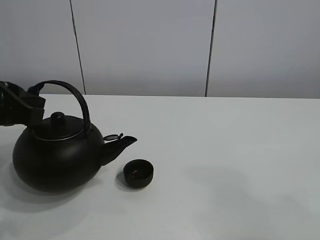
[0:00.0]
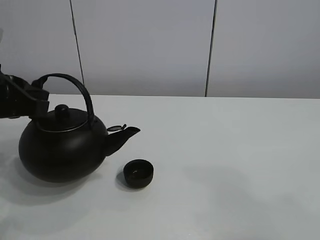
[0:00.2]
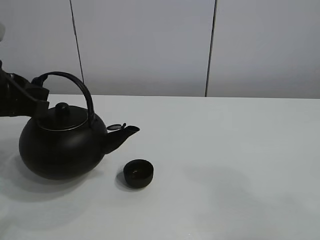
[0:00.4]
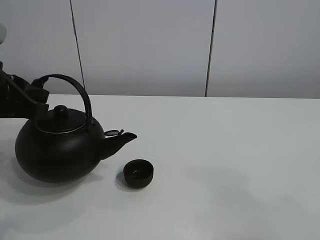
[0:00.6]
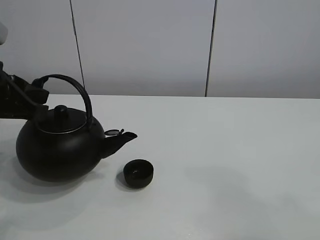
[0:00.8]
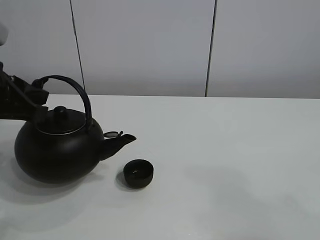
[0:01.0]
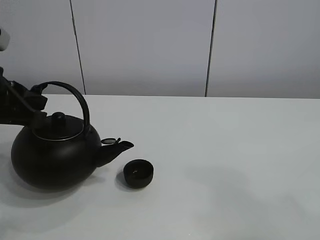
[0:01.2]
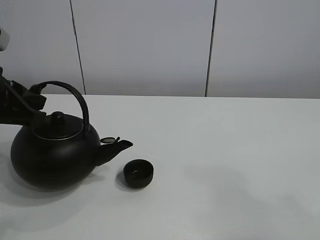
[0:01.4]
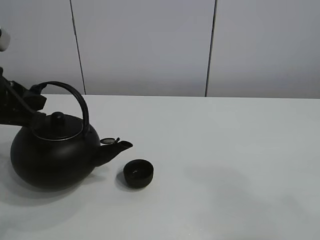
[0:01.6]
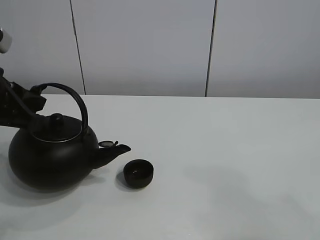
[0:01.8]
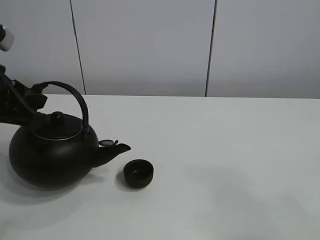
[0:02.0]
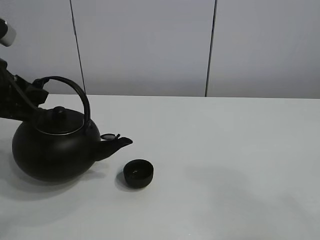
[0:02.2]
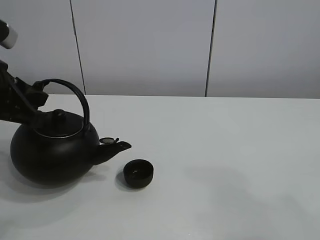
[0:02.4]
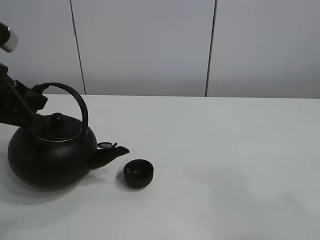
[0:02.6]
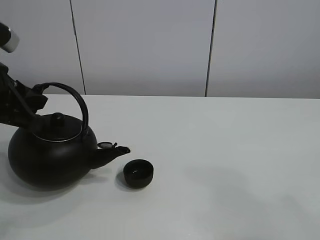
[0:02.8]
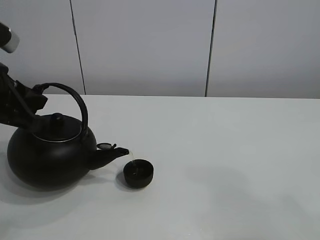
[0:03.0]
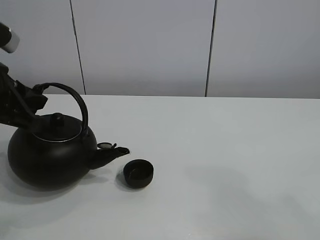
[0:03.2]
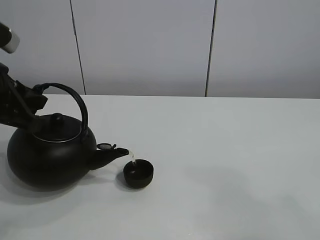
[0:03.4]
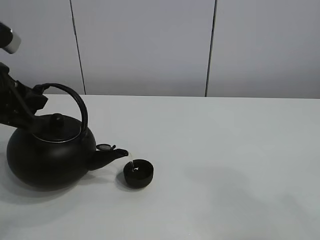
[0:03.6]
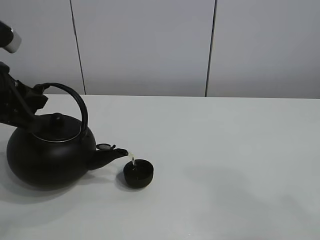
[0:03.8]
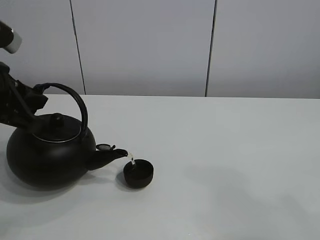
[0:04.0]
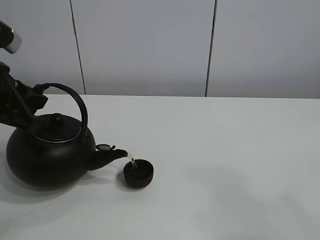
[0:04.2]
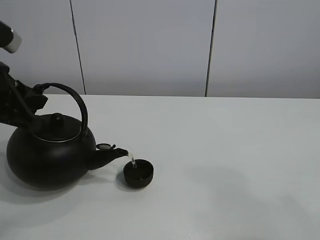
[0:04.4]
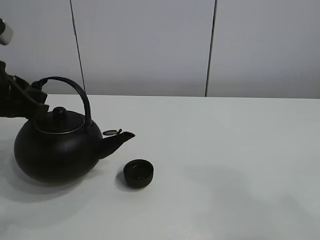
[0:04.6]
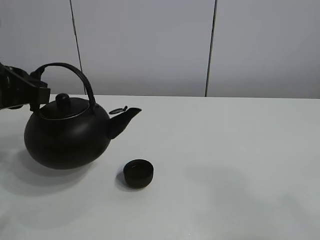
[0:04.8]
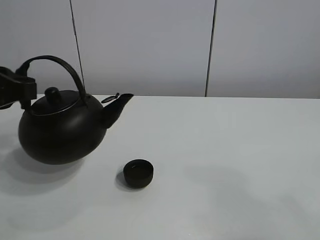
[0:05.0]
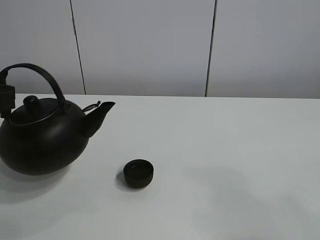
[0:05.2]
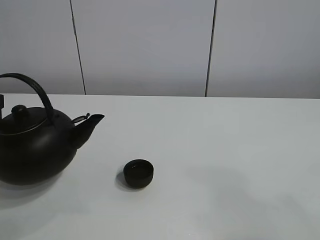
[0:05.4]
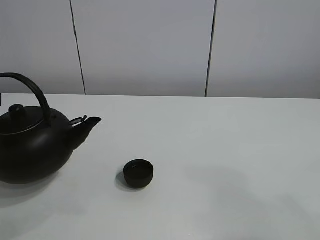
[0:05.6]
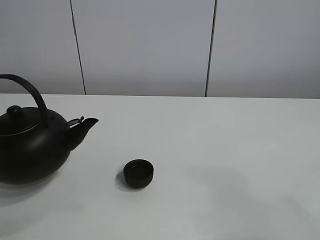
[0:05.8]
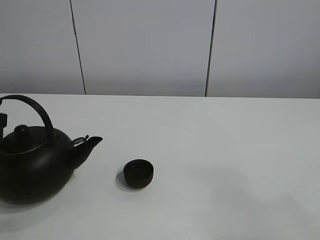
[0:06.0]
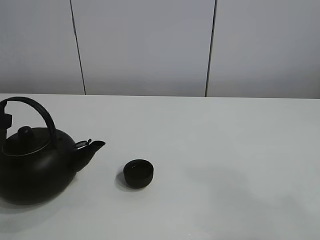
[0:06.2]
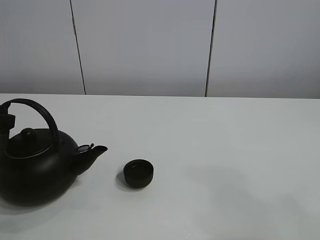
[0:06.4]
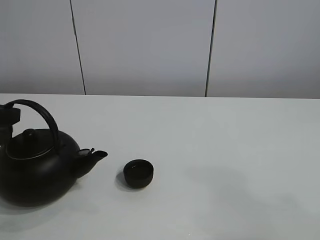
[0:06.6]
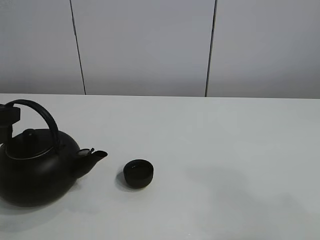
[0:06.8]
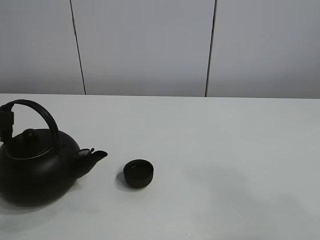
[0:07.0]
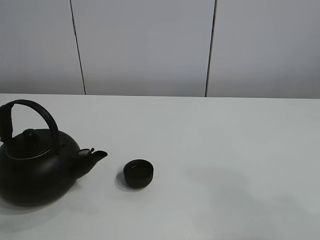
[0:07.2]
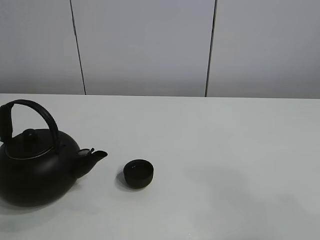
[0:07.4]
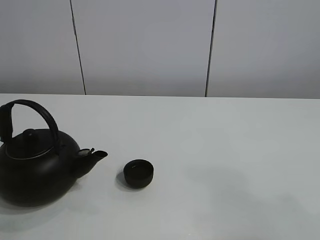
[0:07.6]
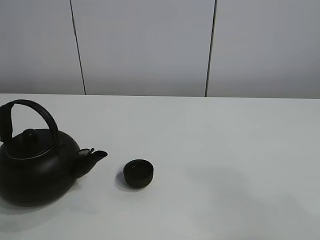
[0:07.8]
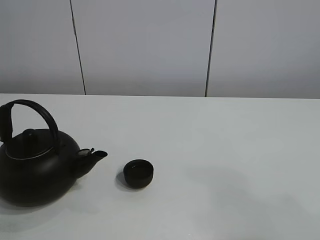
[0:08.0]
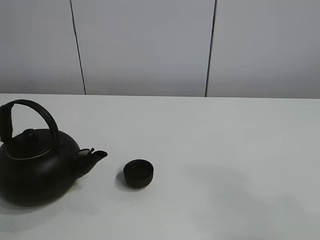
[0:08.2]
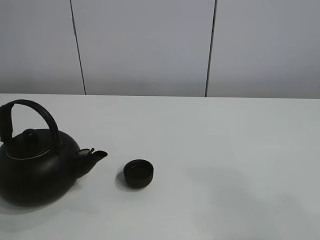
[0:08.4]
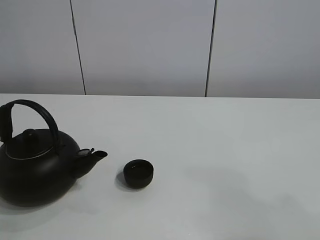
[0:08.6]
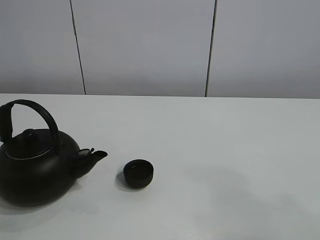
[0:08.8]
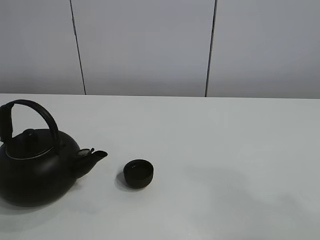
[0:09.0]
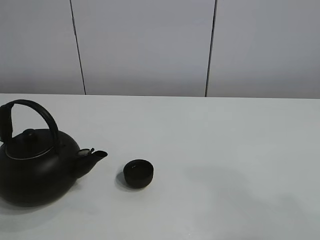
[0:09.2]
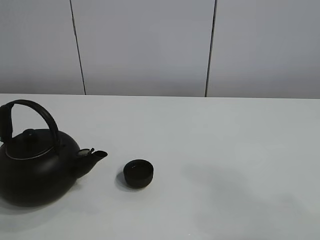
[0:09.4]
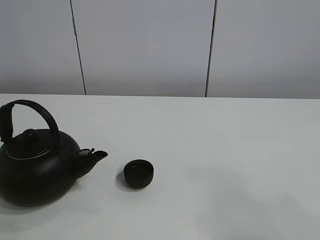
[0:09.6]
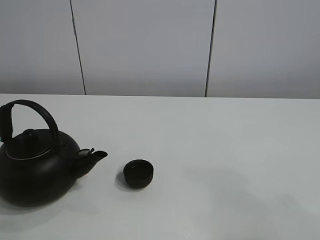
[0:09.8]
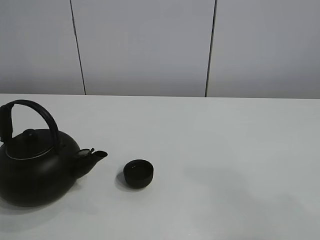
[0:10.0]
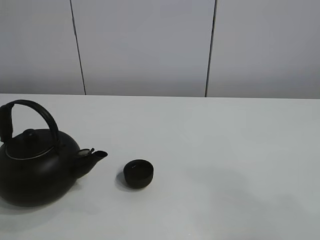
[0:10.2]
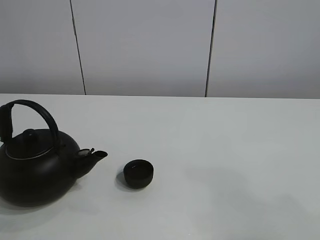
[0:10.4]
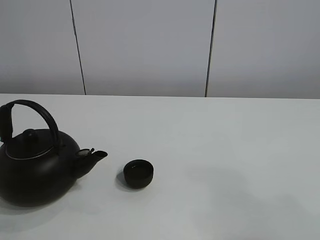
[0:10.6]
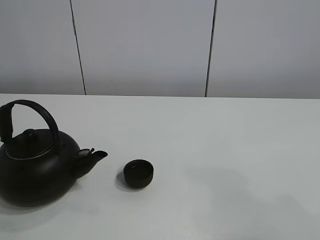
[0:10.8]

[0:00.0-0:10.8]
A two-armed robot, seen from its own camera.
Task of the whole recording: pour tea into the teacup.
Step, 0:00.0 to 0:04.4: Pour tea into the teacup with the left gripper.
0:00.0 to 0:04.6: The grippers make only small movements.
0:04.6 to 0:06.2: The left gripper heads to the left and downward, covering some 10 cm.
0:06.2 to 0:07.8: The left gripper opens.

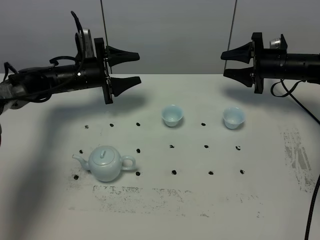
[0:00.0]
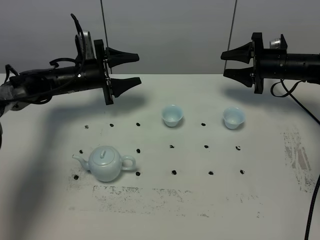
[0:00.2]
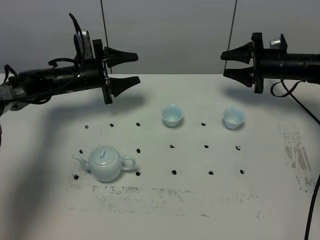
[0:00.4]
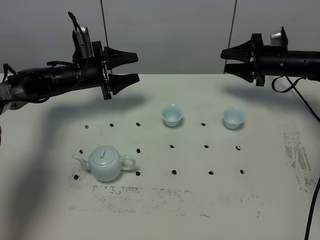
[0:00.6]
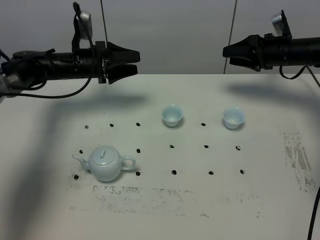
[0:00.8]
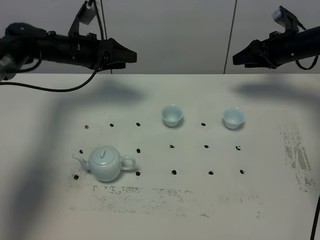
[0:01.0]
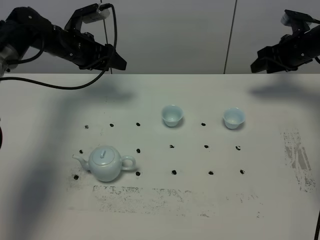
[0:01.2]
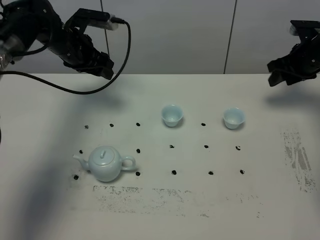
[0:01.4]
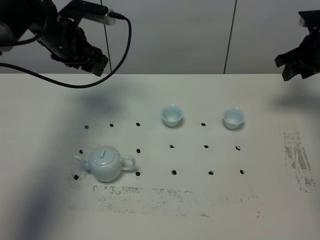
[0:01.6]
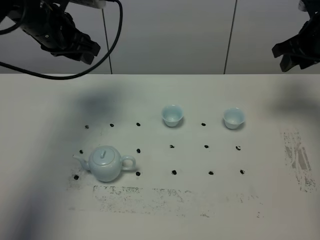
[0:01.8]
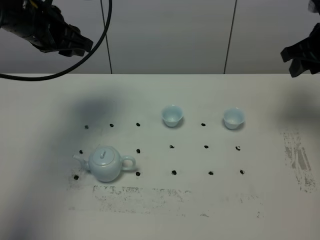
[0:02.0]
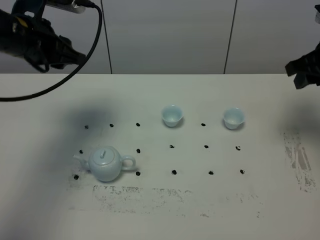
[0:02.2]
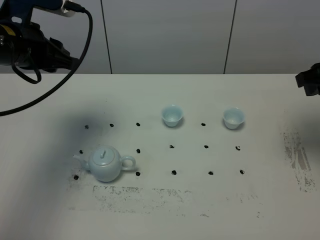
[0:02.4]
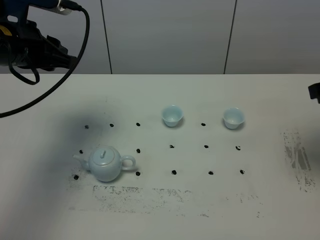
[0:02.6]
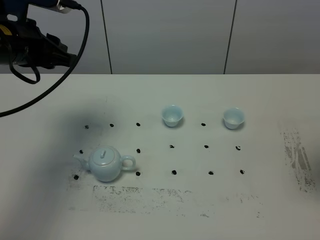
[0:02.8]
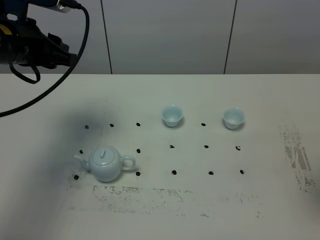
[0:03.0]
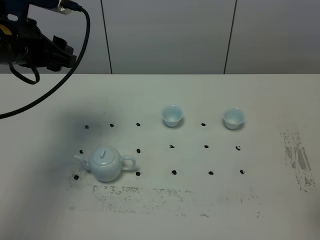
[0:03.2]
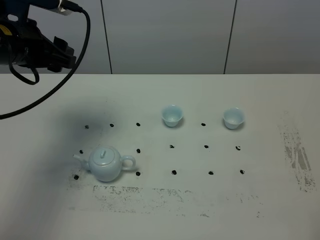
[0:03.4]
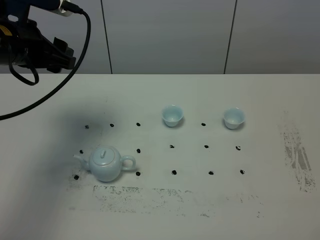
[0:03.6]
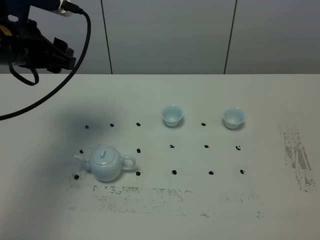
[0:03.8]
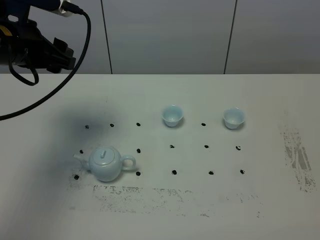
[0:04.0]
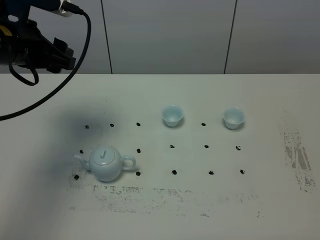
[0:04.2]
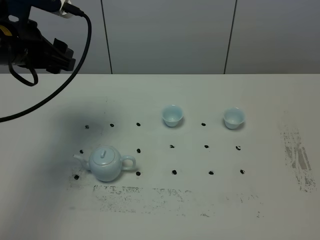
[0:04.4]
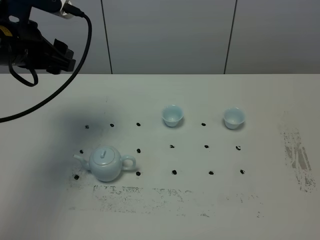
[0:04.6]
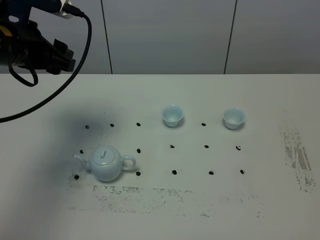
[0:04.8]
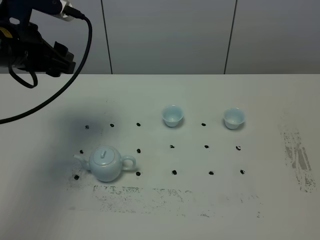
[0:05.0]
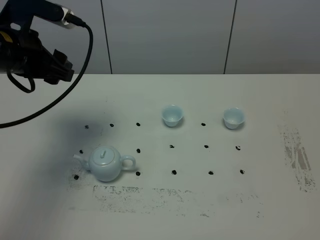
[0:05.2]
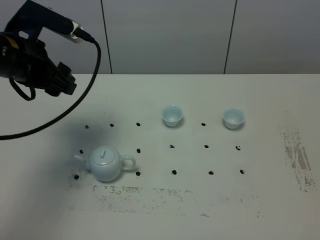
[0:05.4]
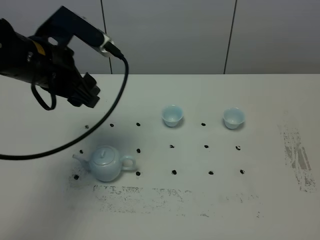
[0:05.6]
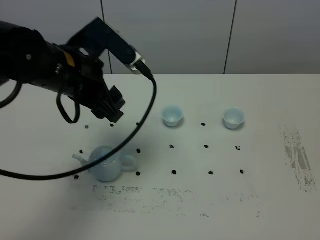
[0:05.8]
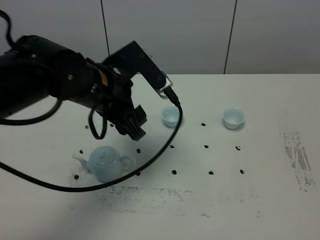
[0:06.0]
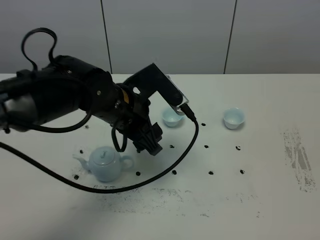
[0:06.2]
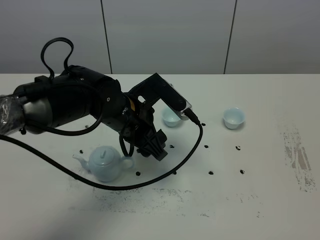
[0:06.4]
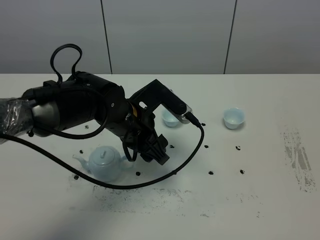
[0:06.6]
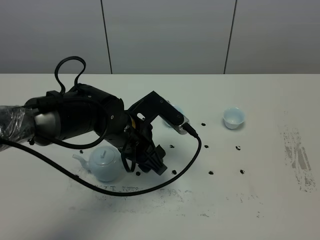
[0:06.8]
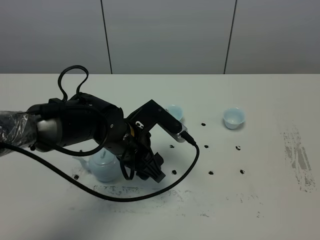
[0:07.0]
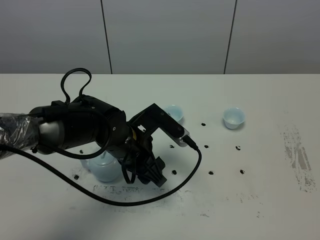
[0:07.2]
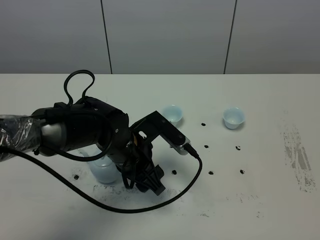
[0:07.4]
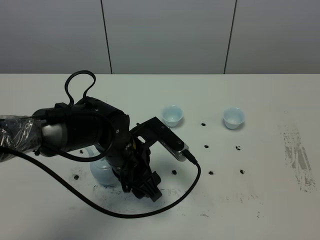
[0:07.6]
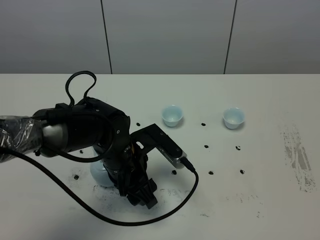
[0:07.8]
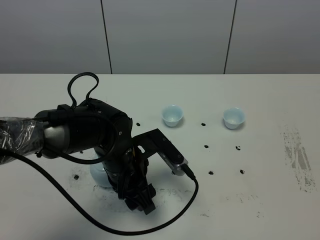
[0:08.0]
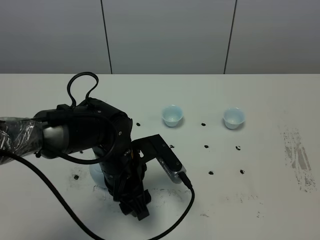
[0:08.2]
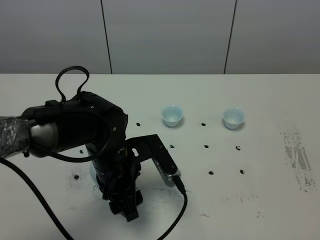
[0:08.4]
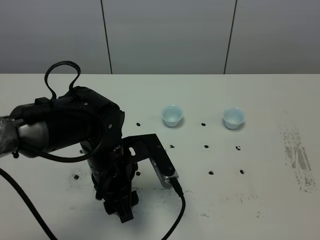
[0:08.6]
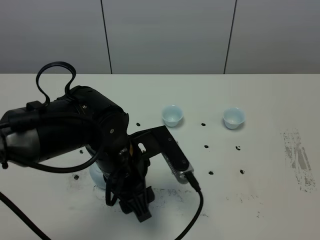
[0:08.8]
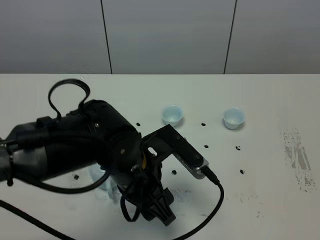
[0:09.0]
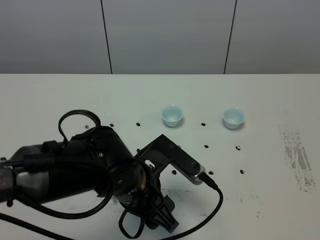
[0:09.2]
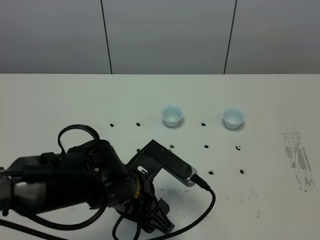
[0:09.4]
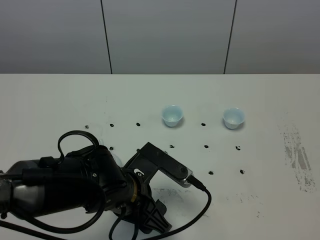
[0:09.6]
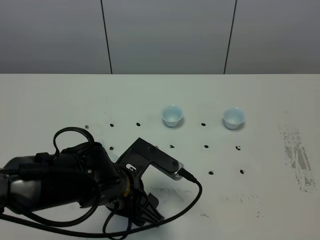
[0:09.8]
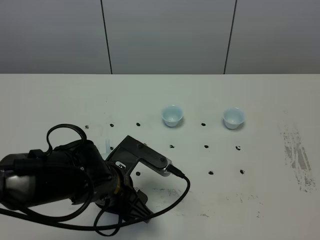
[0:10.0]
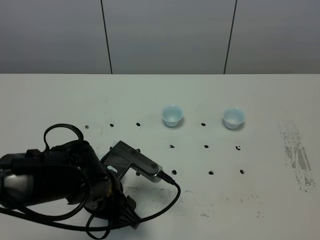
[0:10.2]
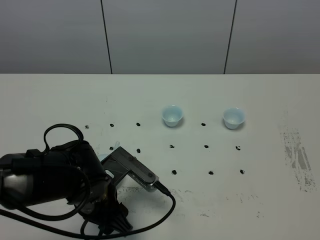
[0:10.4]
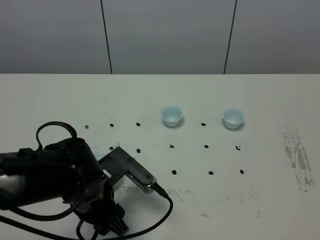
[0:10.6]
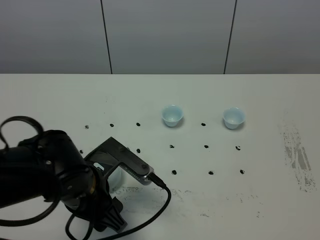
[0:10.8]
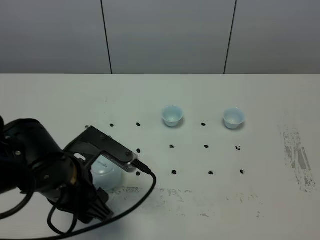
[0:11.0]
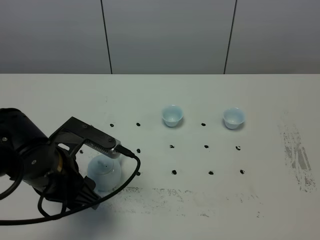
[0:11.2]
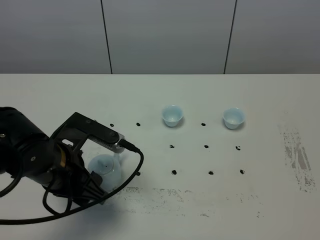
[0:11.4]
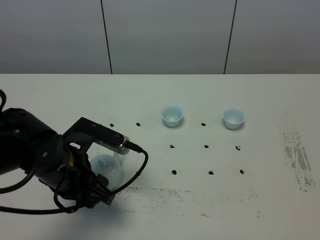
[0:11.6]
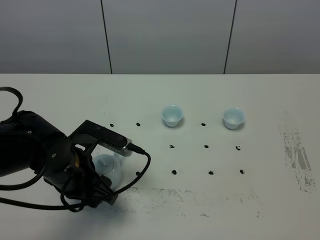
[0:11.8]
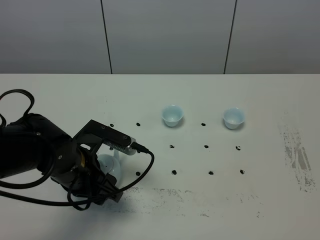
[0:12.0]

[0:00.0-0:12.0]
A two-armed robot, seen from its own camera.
Task of the whole recording: grasp the blue porcelain teapot and pour the tea into the two blue porcelain teacups one by one, put the blue porcelain teapot back in its original place.
0:00.0 to 0:01.6: The left gripper heads upward, covering some 15 cm, while the right gripper goes approximately 10 cm upward and to the right.
0:01.6 to 0:03.0: The left gripper is displaced backward and upward by approximately 15 cm. The right gripper shifts approximately 30 cm backward.
0:04.4 to 0:06.0: The left gripper moves to the right, about 15 cm. The right gripper closes.
0:06.0 to 0:07.6: The left gripper is displaced downward by approximately 10 cm.
0:07.6 to 0:09.0: The left gripper heads backward, covering about 5 cm.
0:09.0 to 0:10.4: The left gripper shifts approximately 10 cm to the left and downward.
0:10.4 to 0:12.0: The left gripper ends up about 5 cm from where it was.
